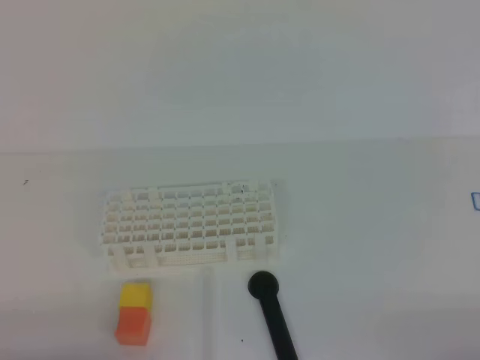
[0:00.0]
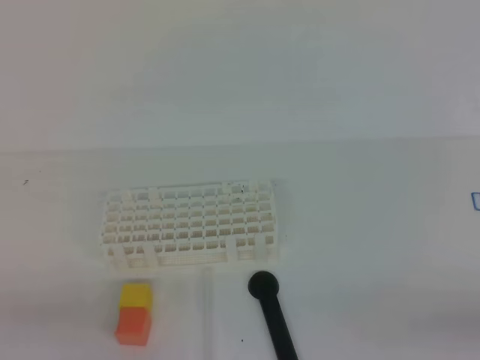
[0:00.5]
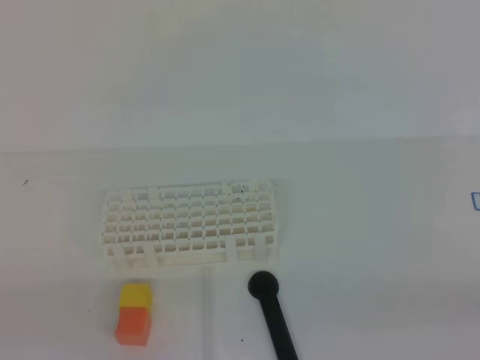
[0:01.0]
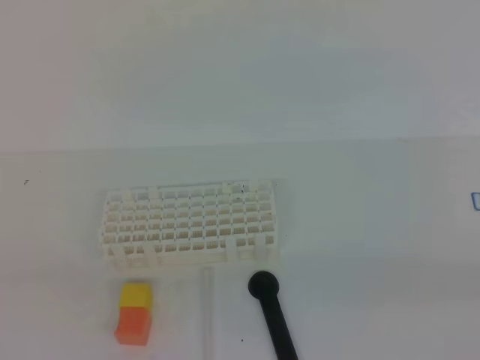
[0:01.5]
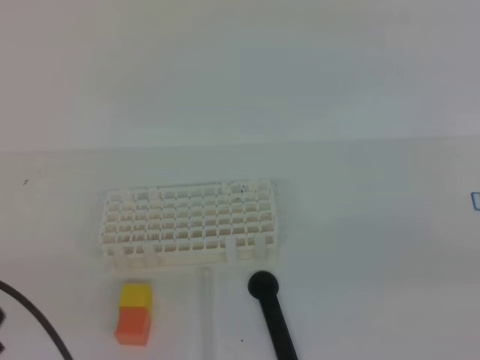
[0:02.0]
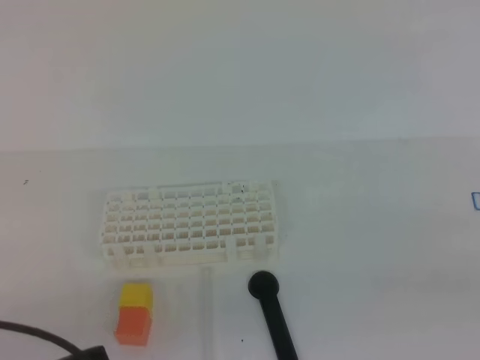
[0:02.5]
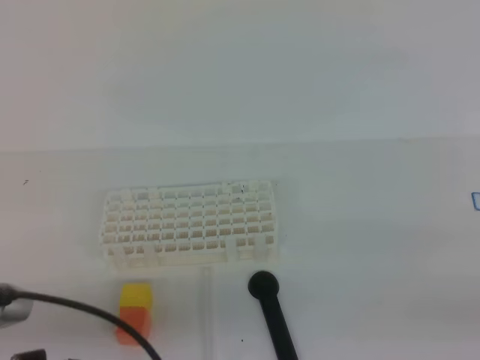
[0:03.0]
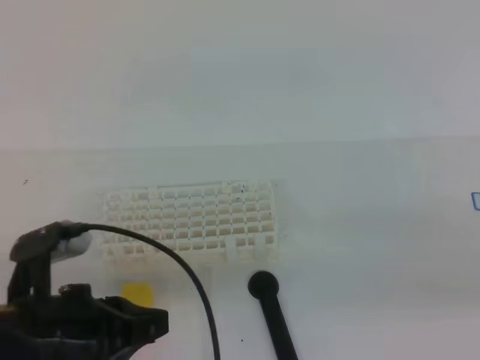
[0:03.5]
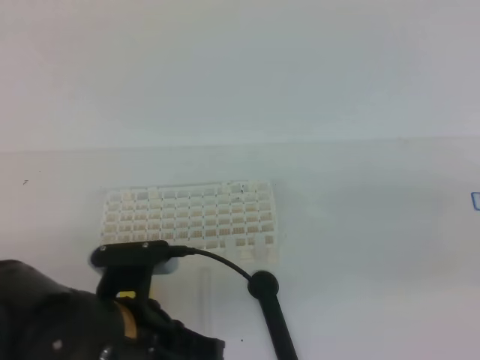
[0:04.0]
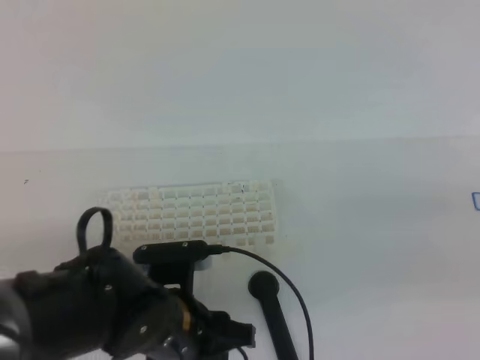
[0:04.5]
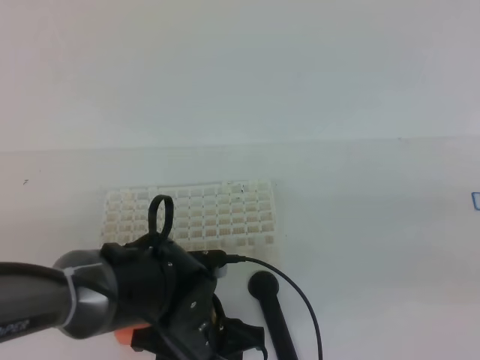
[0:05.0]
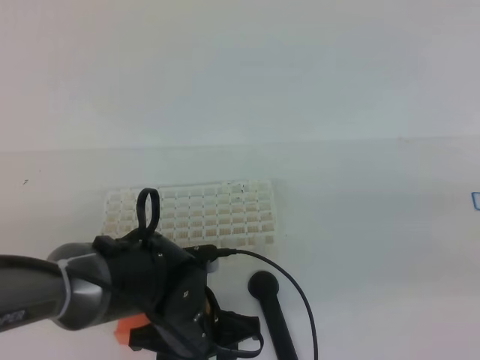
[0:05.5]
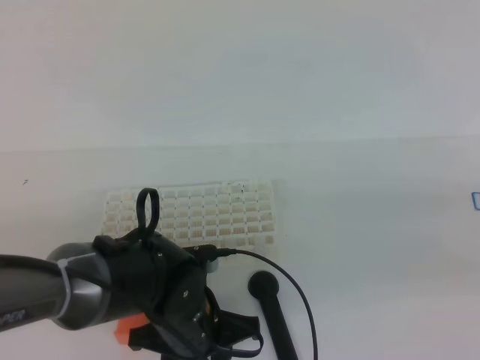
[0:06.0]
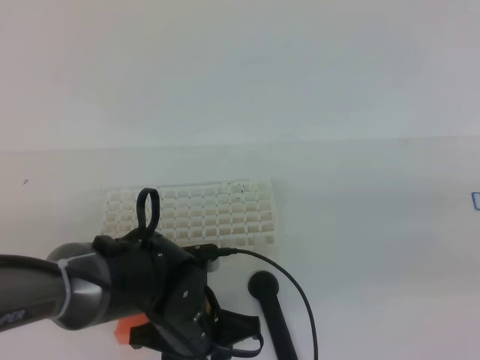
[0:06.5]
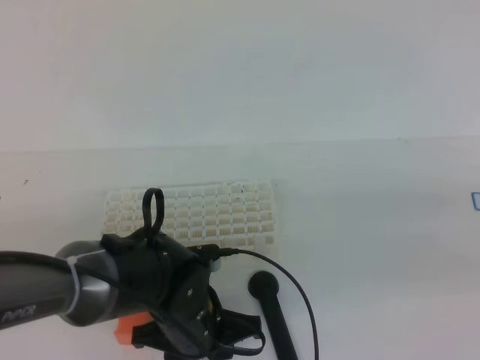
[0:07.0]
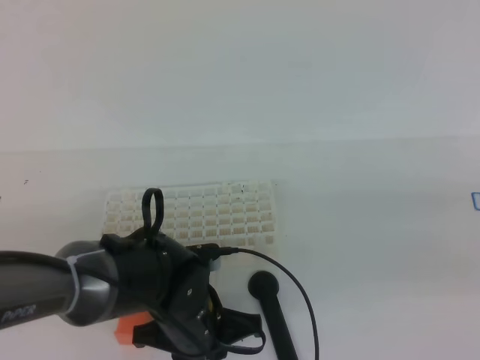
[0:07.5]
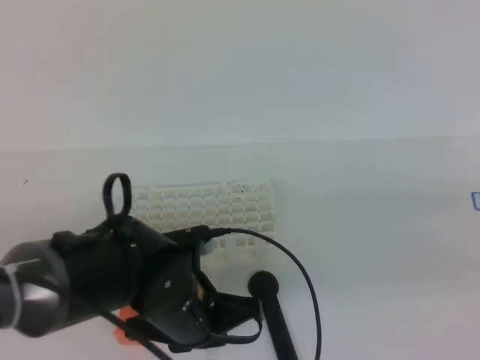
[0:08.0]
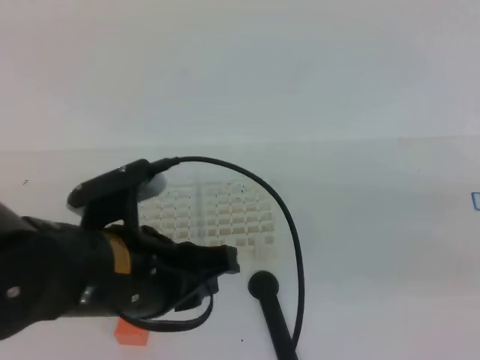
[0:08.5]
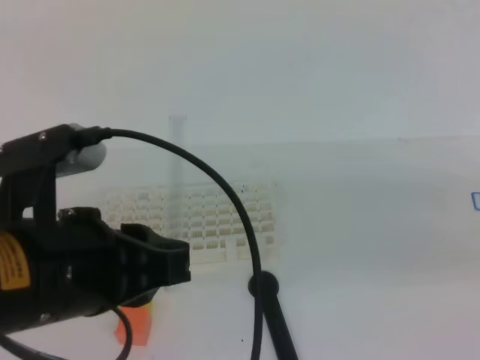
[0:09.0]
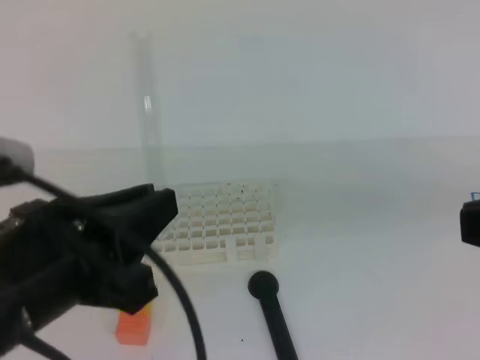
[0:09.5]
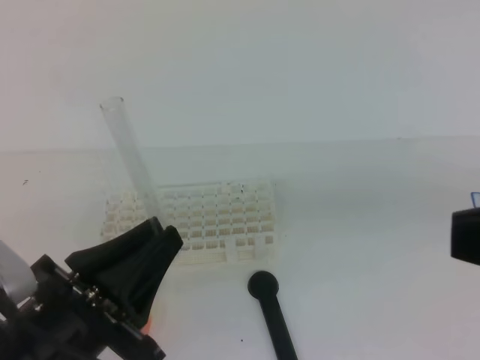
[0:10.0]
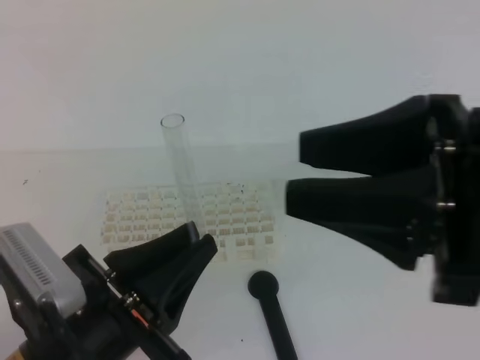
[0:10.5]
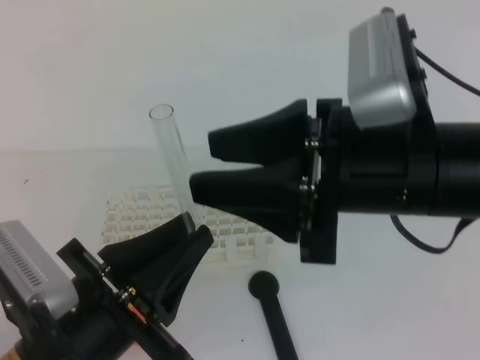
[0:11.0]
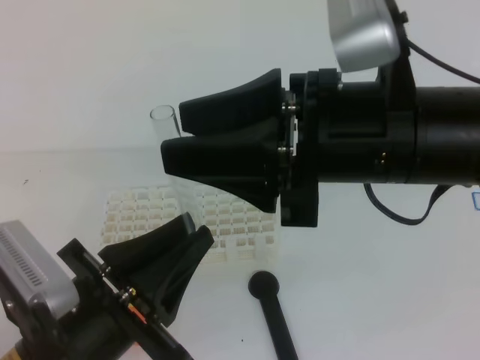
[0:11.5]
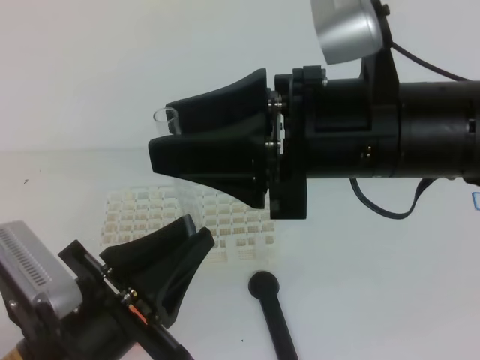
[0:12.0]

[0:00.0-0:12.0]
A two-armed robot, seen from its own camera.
0:00.0 to 0:02.0: The left gripper shifts approximately 10 cm upward.
0:02.0 to 0:04.0: The left gripper heads to the right, forward and downward, covering about 20 cm, while the right gripper moves forward and to the left, about 15 cm.
0:04.0 to 0:06.0: The left gripper is displaced downward, to the right and forward by about 10 cm, and opens.
0:06.0 to 0:08.0: The left gripper closes.
0:08.0 to 0:10.0: The right gripper shifts about 10 cm upward; the left gripper heads backward, upward and to the left, covering some 15 cm.
0:10.0 to 0:12.0: The right gripper is displaced to the left and forward by roughly 20 cm, and opens.

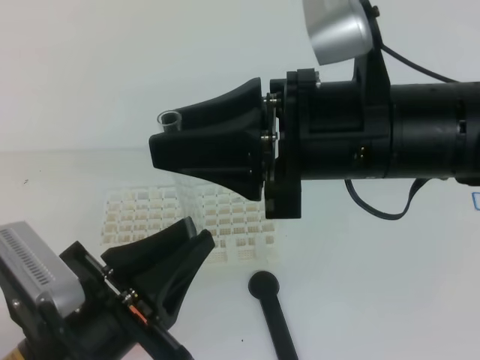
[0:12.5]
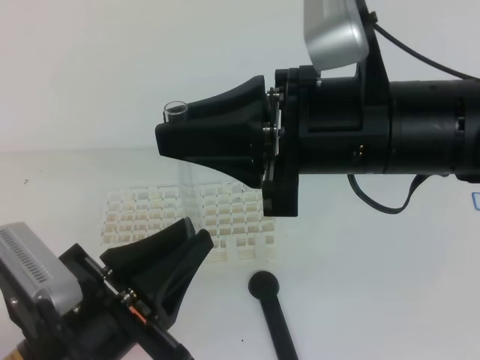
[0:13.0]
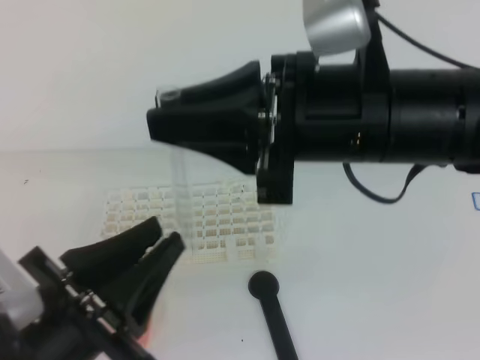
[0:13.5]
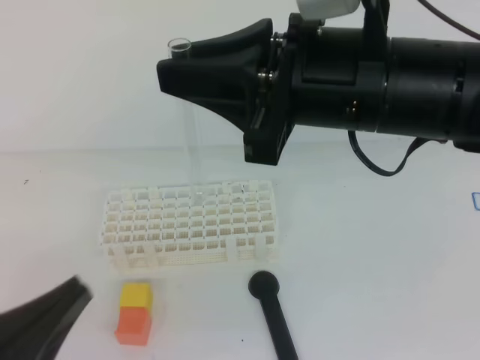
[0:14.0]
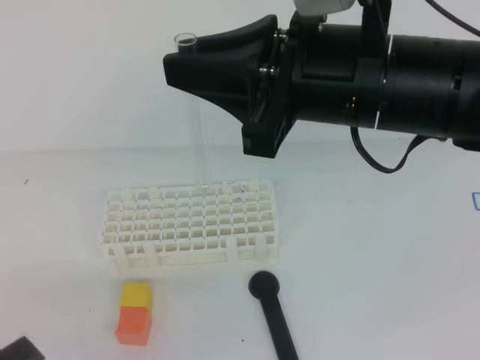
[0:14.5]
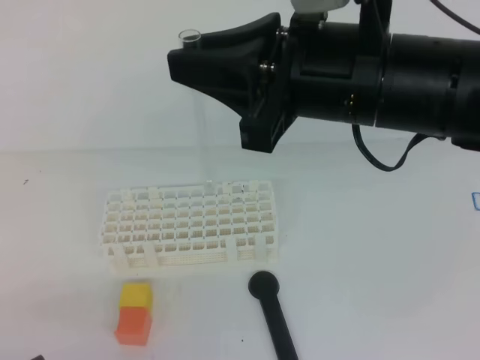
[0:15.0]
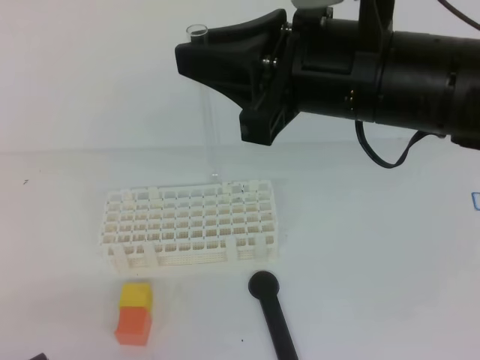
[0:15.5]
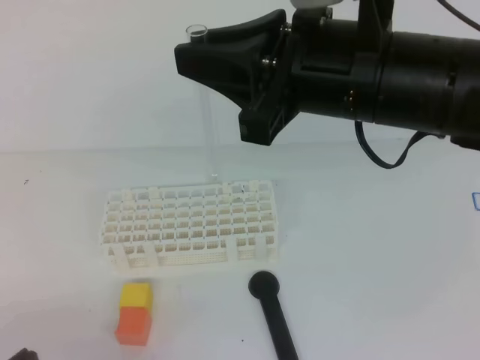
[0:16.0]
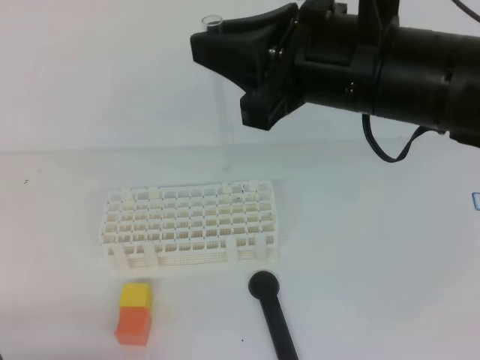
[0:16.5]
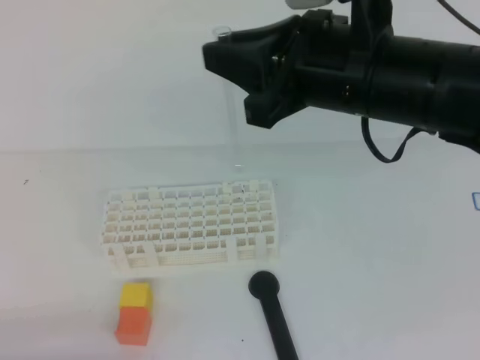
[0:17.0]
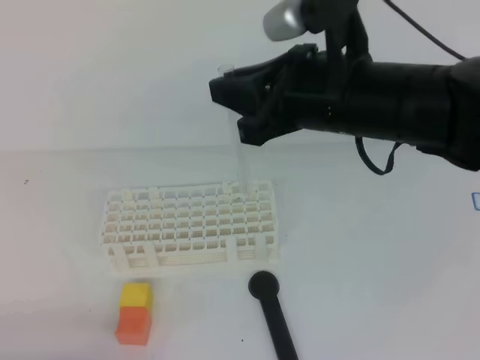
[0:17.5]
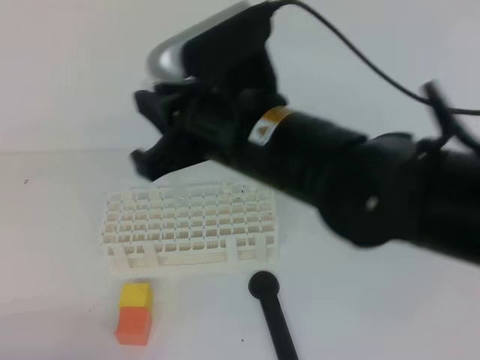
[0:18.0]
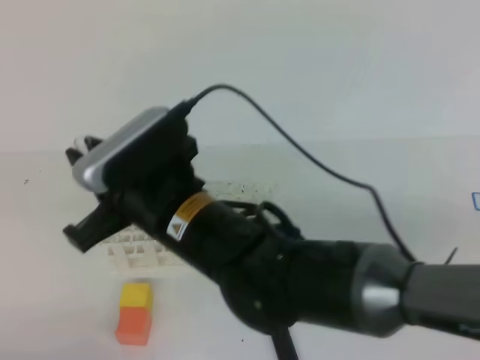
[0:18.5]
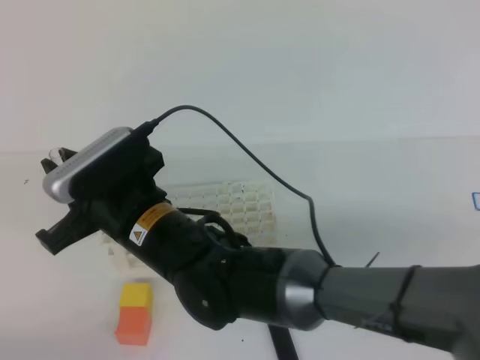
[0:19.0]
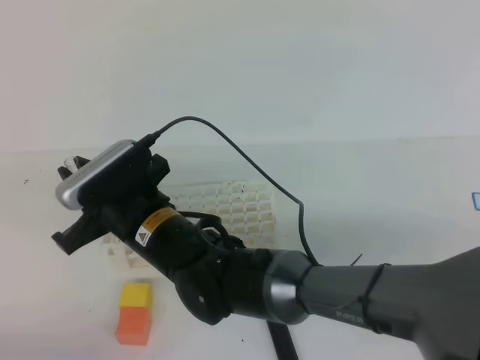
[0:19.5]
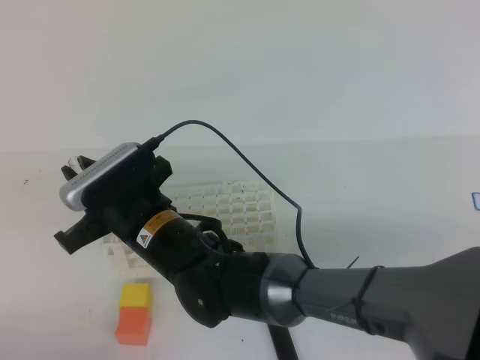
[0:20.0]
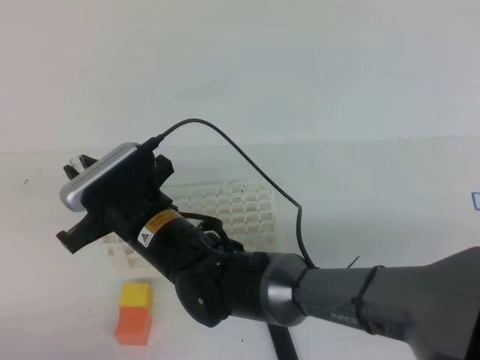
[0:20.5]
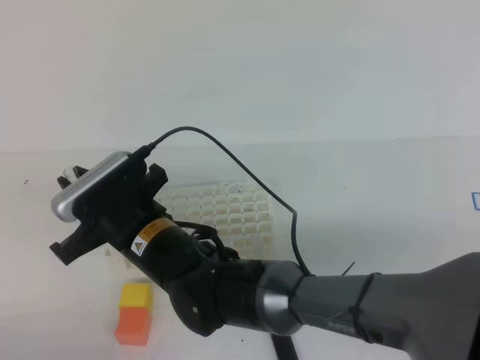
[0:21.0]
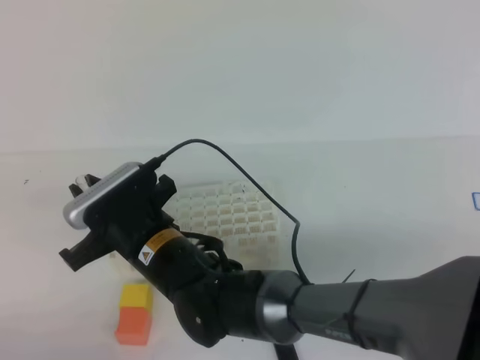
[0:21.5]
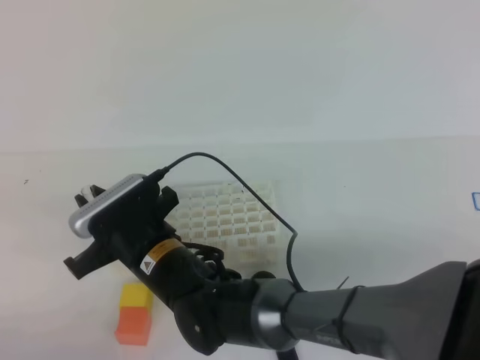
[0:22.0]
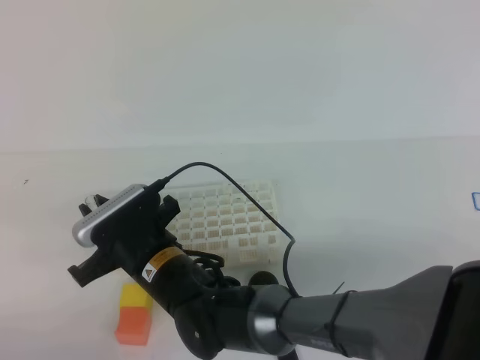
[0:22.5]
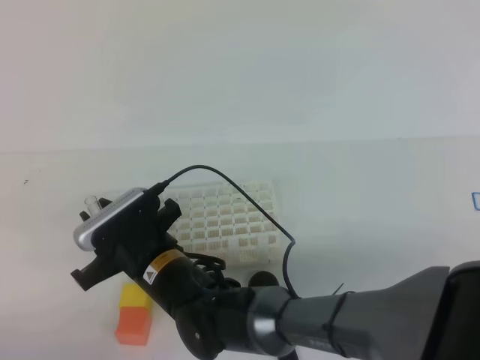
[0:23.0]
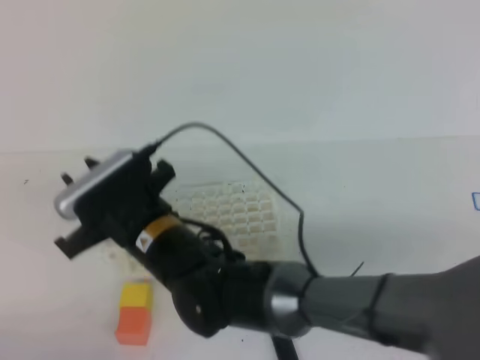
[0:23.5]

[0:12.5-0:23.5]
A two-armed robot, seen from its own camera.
0:12.5 to 0:14.5: The left gripper heads to the left and backward, covering some 15 cm, and opens, then closes again.
0:14.5 to 0:16.0: The left gripper is displaced downward by about 5 cm.
0:16.0 to 0:18.0: The right gripper is displaced to the left and downward by roughly 10 cm.
0:18.0 to 0:20.0: The right gripper is displaced downward and to the left by about 20 cm.
0:20.0 to 0:21.5: The grippers move only a little.
0:21.5 to 0:23.5: The right gripper opens up.

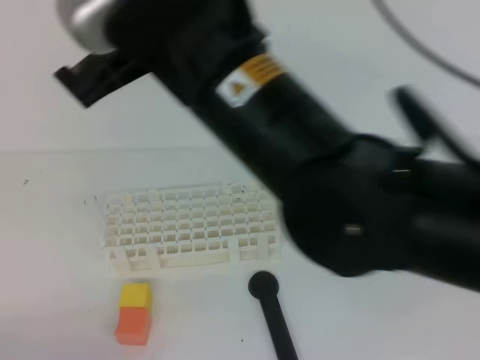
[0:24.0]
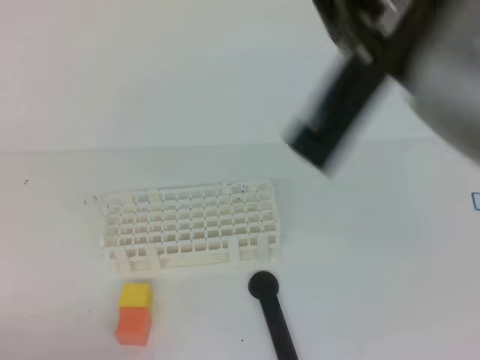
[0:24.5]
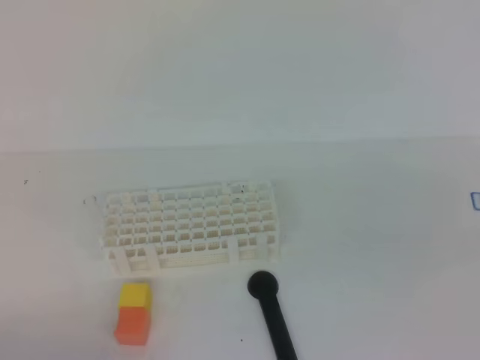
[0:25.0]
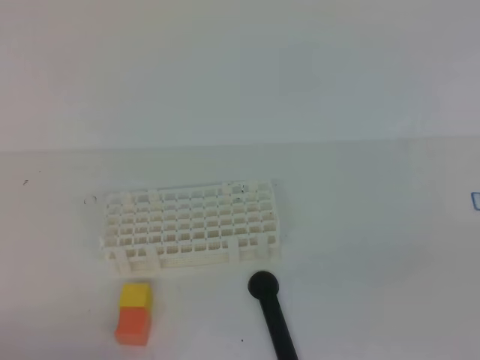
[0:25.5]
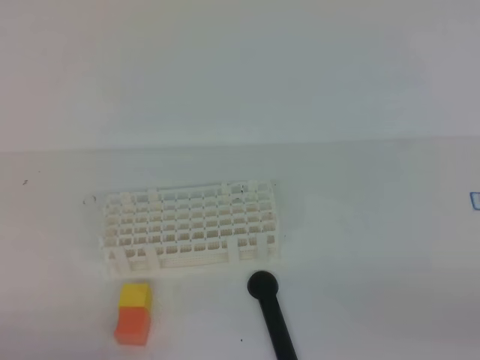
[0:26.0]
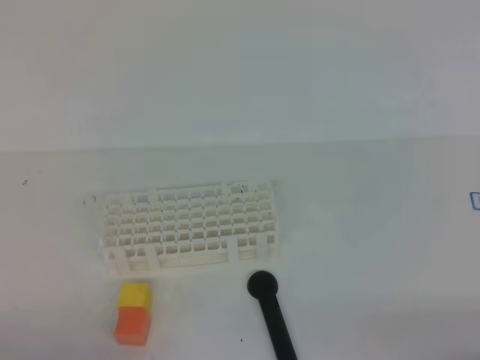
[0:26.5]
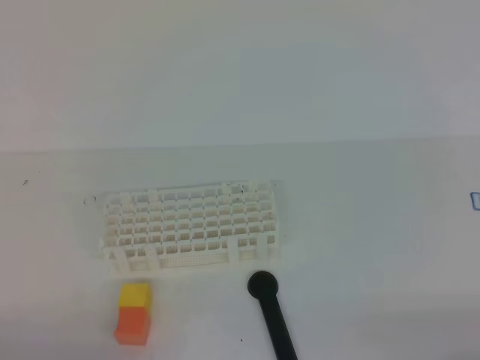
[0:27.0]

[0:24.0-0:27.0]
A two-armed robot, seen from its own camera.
0:24.0 to 0:25.5: The right gripper travels to the right and backward by roughly 40 cm.
